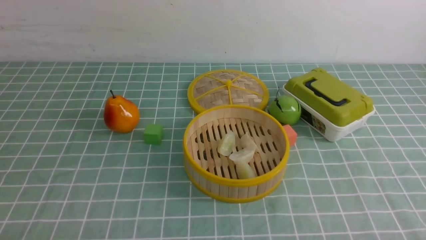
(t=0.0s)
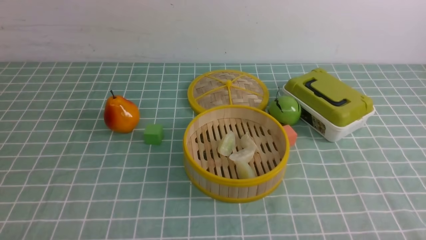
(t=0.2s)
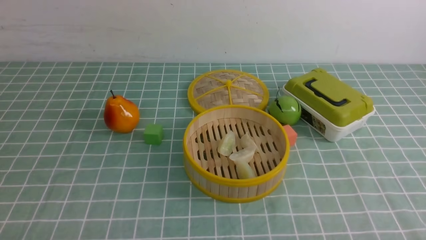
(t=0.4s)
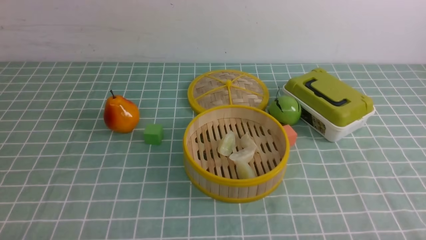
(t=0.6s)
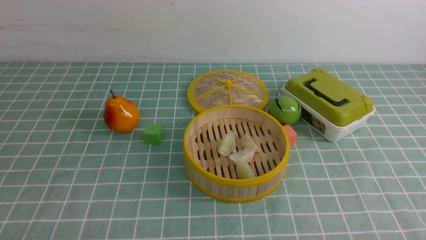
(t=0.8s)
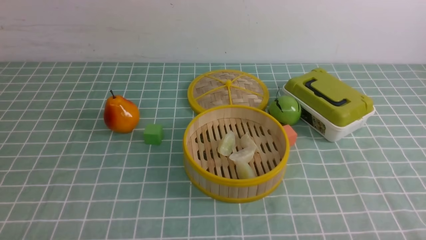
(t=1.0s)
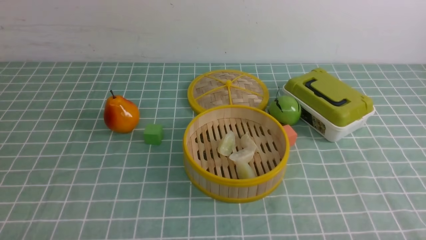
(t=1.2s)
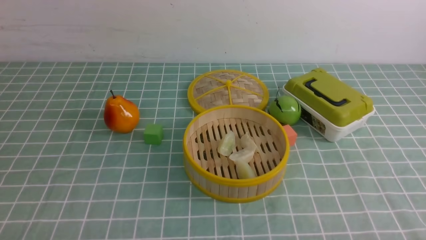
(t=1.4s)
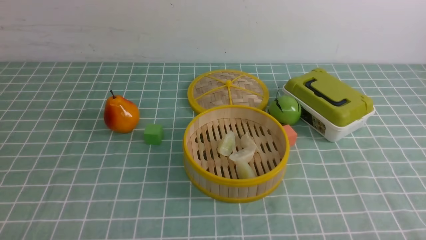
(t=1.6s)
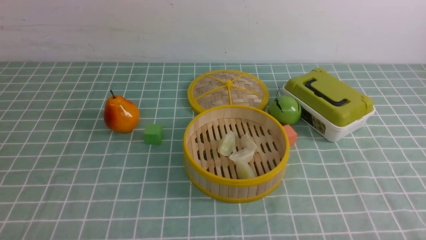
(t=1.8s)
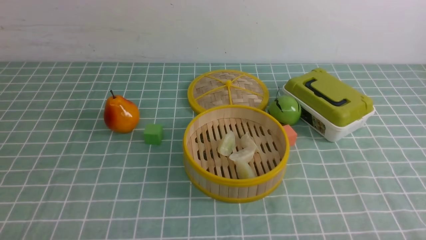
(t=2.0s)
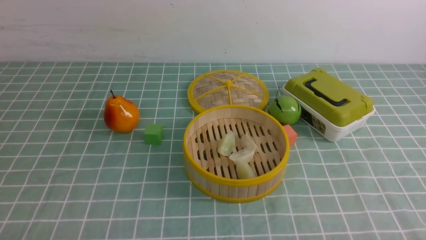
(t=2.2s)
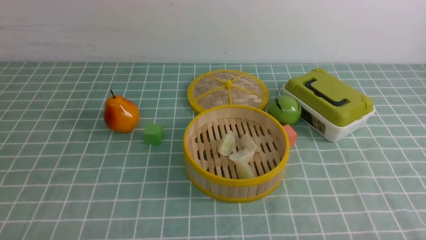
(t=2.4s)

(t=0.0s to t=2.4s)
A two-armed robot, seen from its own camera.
Task of the whole recording: put the dumplings into the steamer on the table with the blue tablecloth.
t=1.2s - t=2.4s: The two grippers keep their place.

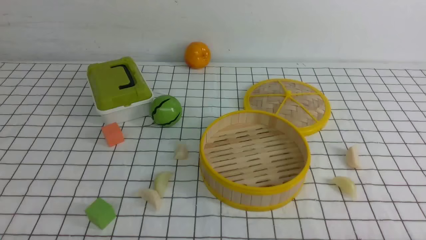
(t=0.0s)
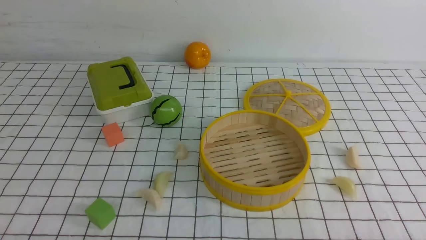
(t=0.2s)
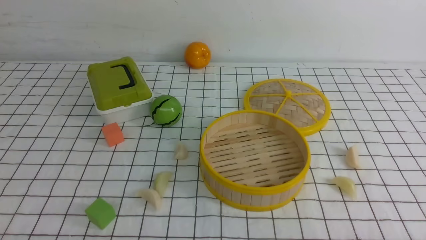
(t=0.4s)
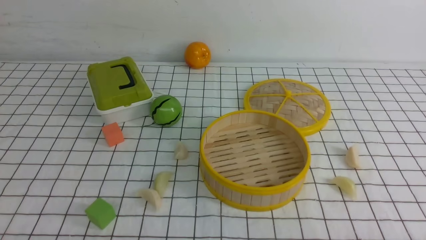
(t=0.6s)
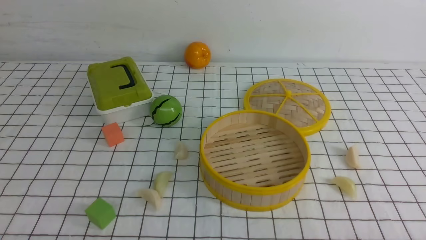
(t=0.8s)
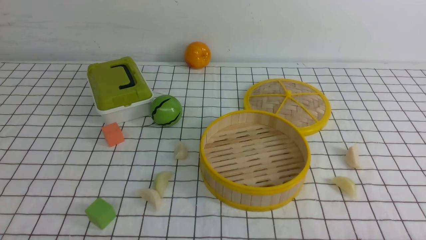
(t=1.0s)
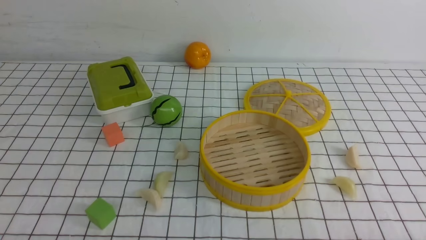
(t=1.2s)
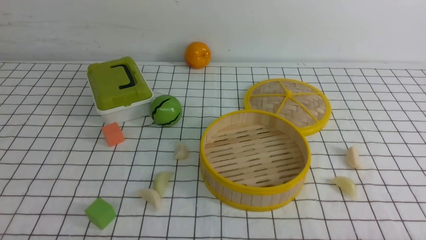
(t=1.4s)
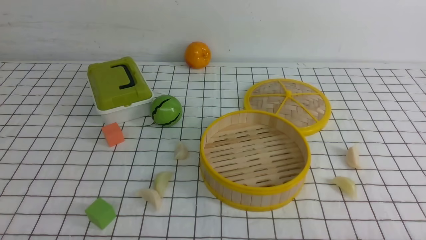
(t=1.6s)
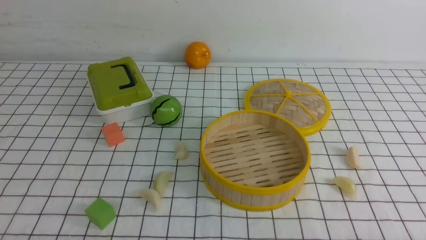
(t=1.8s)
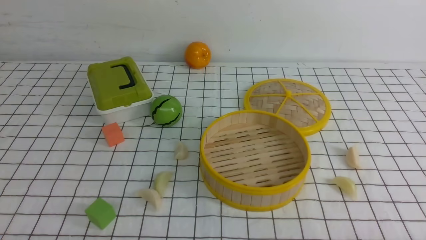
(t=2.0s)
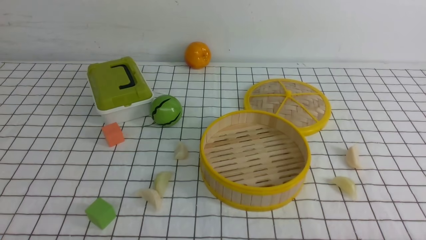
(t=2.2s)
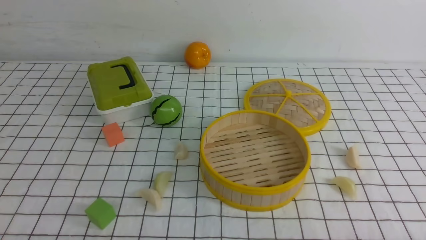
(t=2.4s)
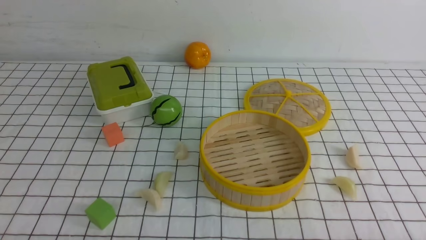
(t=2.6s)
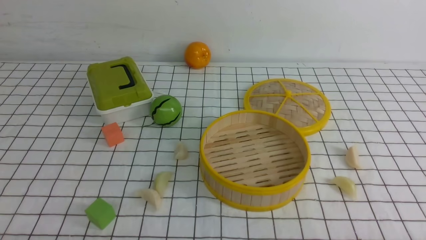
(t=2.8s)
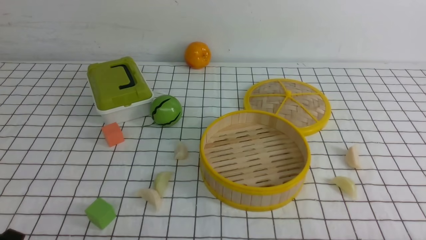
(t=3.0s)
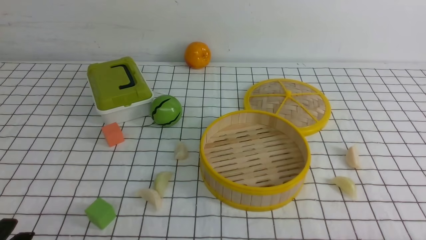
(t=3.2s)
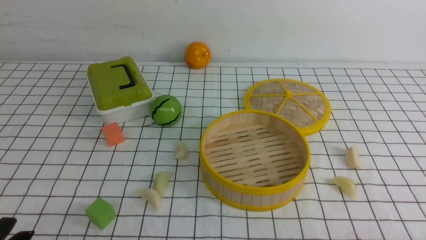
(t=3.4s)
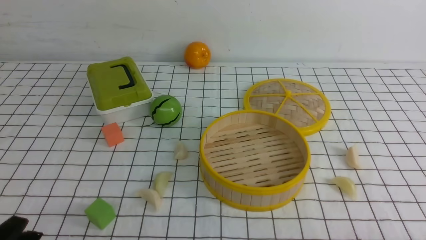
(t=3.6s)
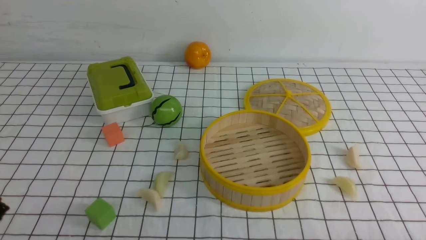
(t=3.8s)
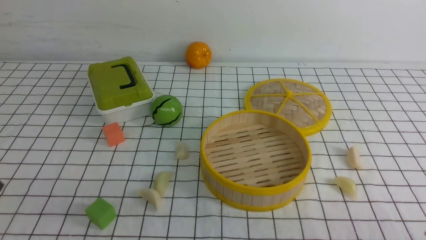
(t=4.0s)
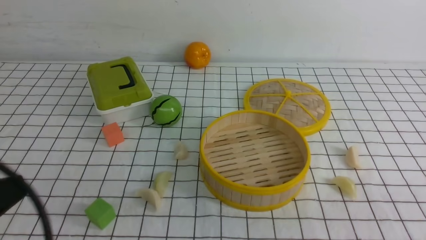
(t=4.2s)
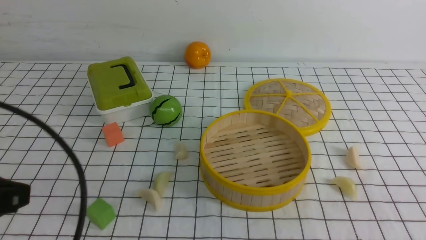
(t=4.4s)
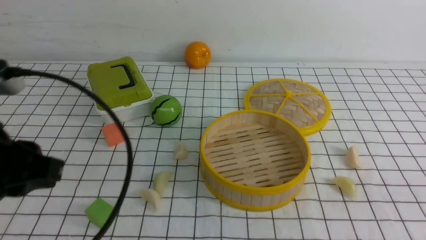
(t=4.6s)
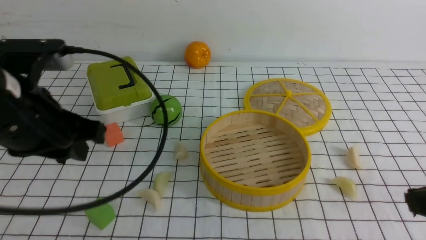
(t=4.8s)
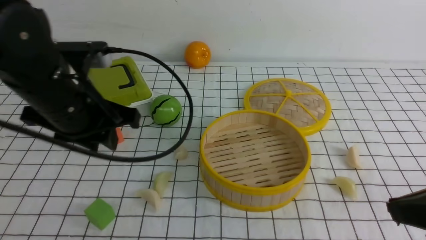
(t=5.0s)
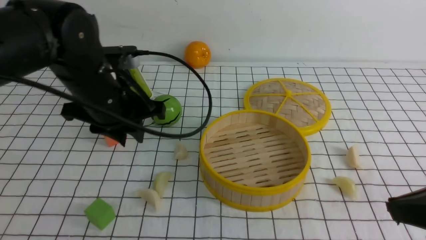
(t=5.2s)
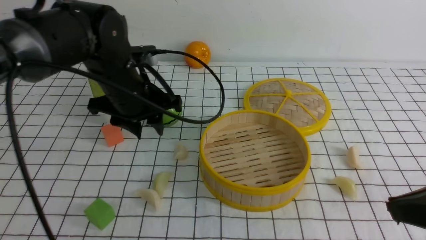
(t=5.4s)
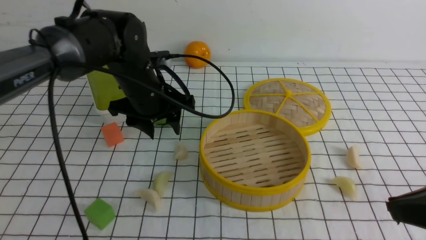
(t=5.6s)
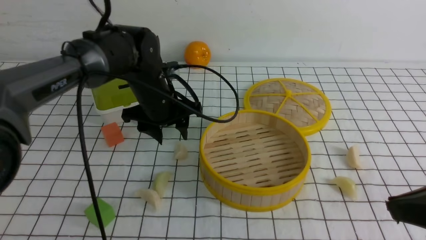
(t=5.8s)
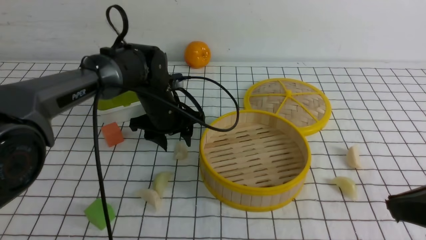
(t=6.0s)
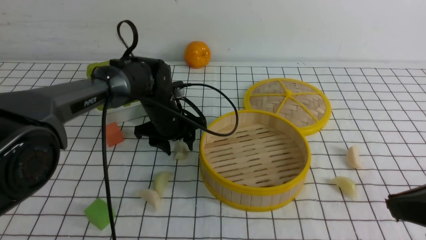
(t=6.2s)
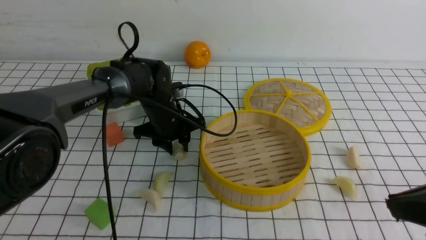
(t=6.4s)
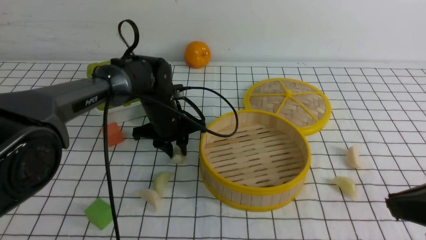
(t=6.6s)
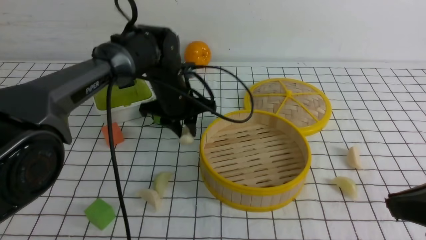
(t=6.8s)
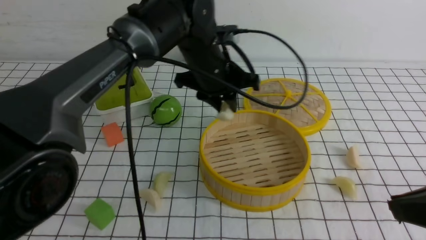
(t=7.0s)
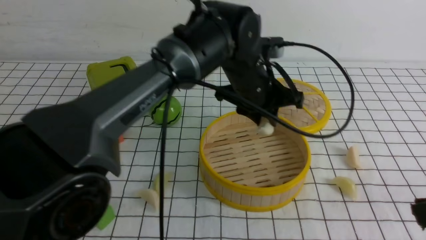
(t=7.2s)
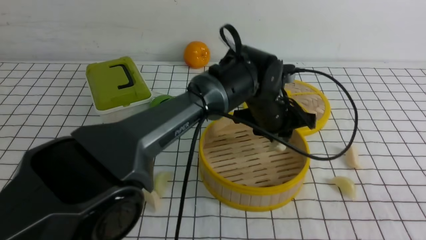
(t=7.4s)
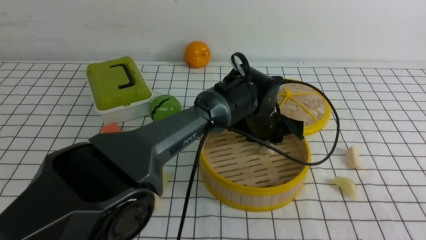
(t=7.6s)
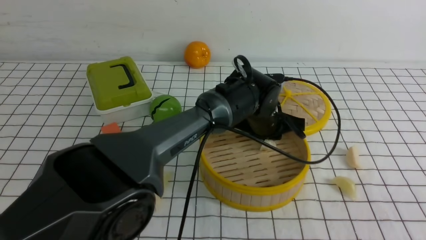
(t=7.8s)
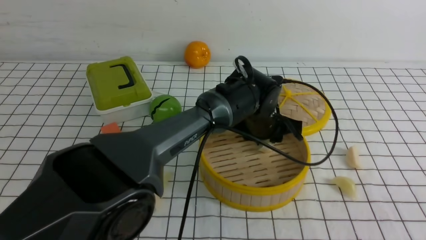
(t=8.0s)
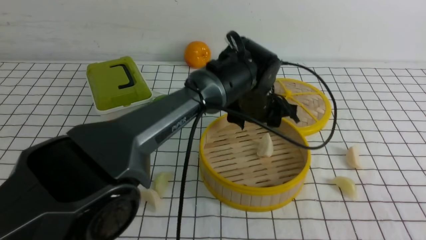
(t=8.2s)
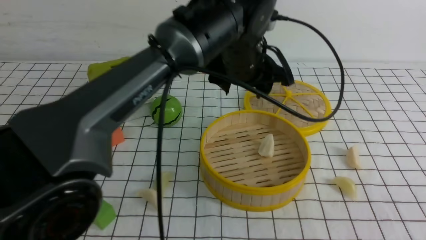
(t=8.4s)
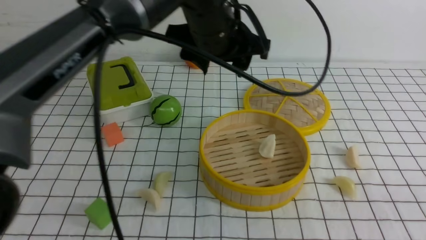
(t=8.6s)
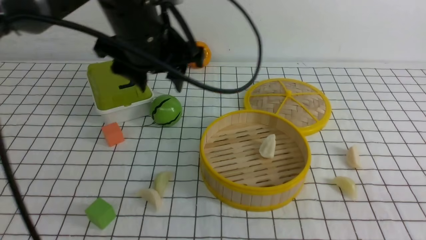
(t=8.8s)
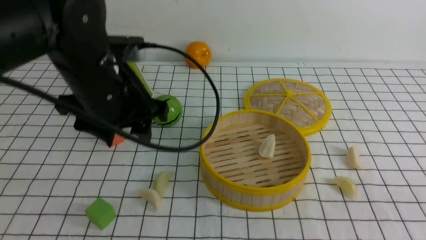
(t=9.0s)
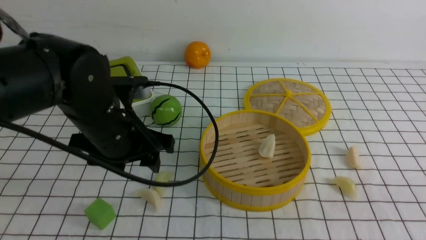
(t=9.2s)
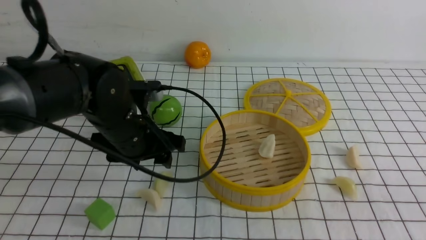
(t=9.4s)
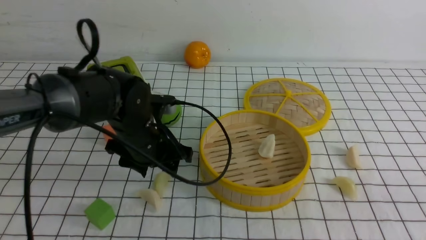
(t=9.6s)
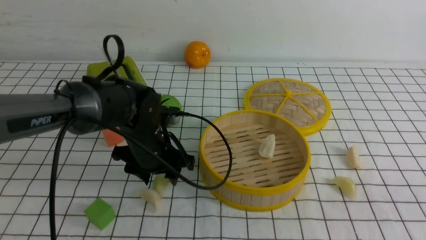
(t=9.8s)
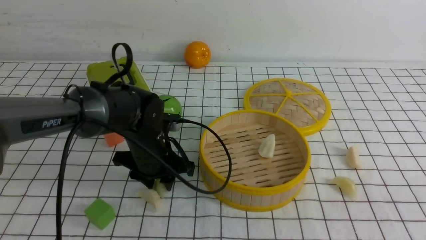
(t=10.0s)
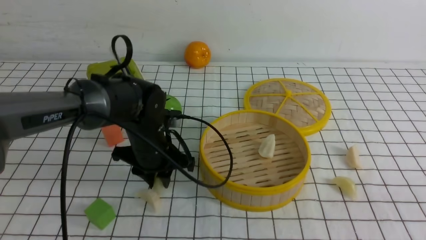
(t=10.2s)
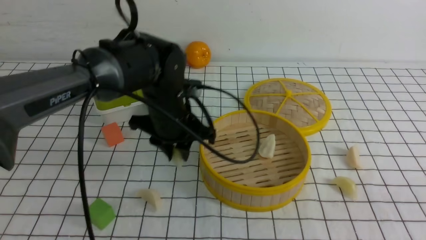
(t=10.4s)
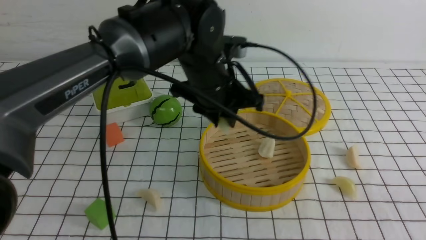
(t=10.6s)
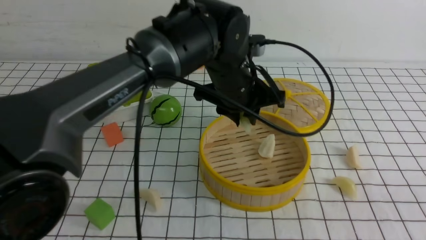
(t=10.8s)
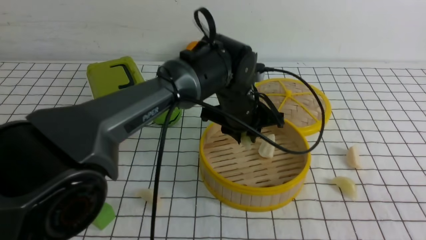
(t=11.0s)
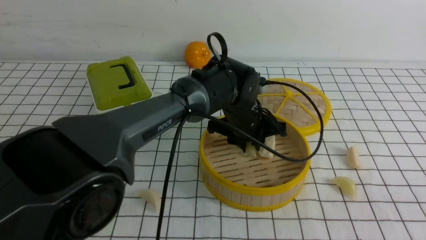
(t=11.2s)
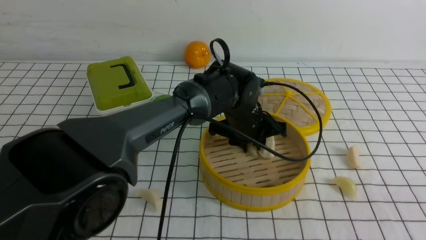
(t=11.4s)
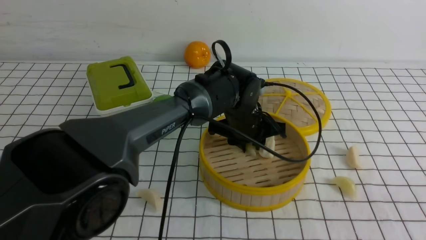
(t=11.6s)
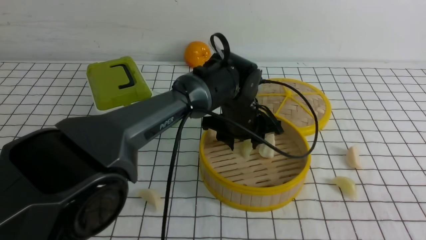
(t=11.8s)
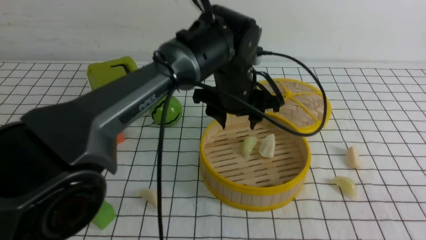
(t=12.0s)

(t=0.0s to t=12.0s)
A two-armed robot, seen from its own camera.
Task of the whole recording: put the dumplings into the steamer on the table with the white tablecloth.
Step, t=0.0s - t=6.6s: use the left arm to grab a dumpling.
Step, t=6.8s - t=8.2s: use the left arm to put the dumpling into the steamer.
Step, t=8.4s - t=10.2s: use the left arm to grab a dumpling.
Step, t=10.6s - t=12.0s: use the left arm to put the dumpling into the steamer.
t=0.0s - t=1.6s: The two grippers keep their place.
t=3.0s - t=4.4s: The left gripper heads upward and forward, covering some 20 cm.
t=4.4s - t=6.0s: The right gripper shifts approximately 5 cm forward. The left gripper is displaced forward, downward and to the right by some 35 cm, and opens.
t=6.0s - t=7.6s: The right gripper is displaced backward by approximately 5 cm, while the left gripper goes about 20 cm to the right, and closes its fingers.
t=7.6s - t=9.0s: The left gripper travels to the left, upward and backward by approximately 25 cm, and opens up.
t=9.0s - t=10.4s: The left gripper heads to the right, downward and forward, covering approximately 10 cm, and closes its fingers.
t=10.4s - t=12.0s: The left gripper moves to the right, about 10 cm, and opens.

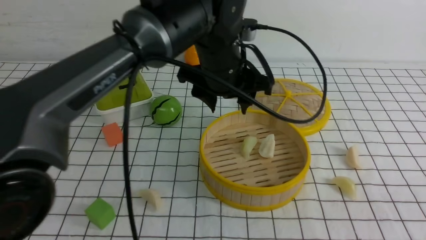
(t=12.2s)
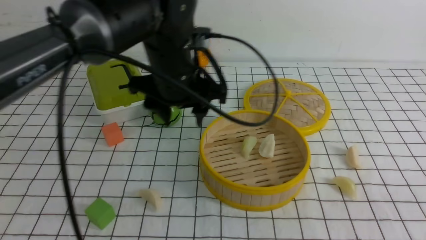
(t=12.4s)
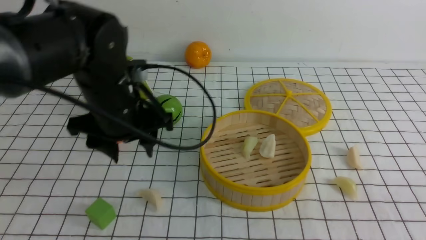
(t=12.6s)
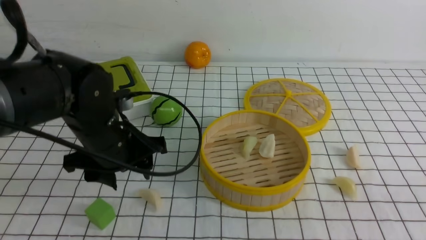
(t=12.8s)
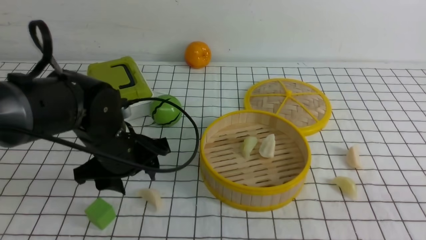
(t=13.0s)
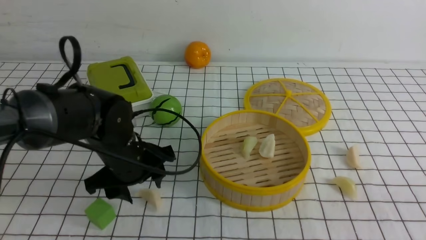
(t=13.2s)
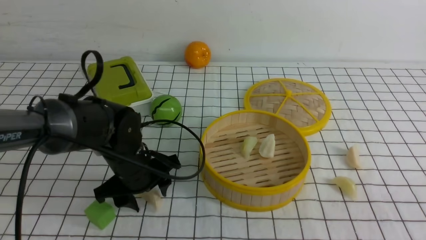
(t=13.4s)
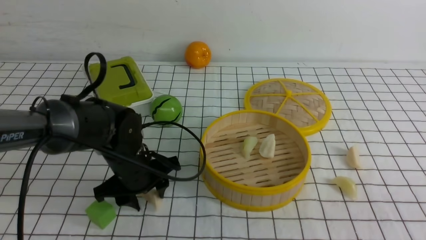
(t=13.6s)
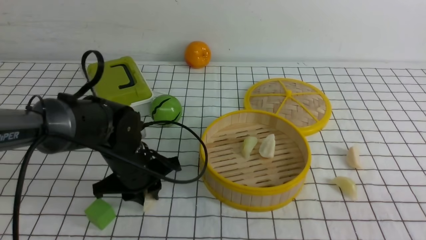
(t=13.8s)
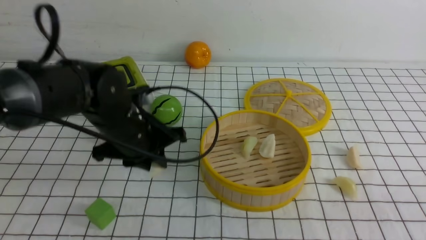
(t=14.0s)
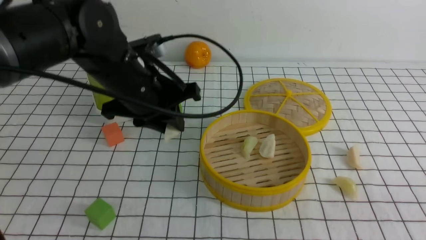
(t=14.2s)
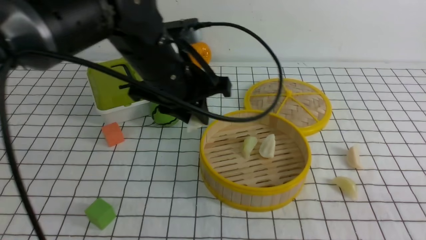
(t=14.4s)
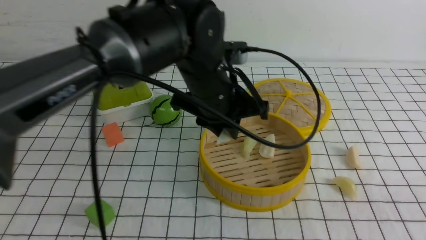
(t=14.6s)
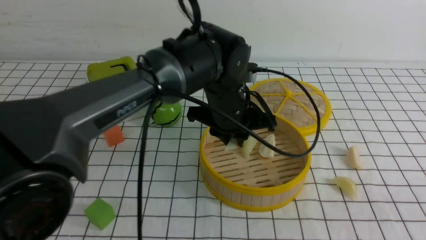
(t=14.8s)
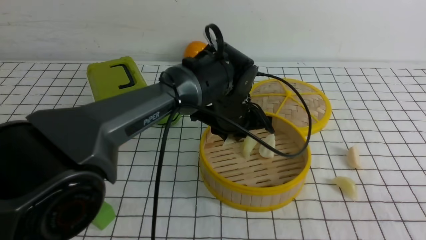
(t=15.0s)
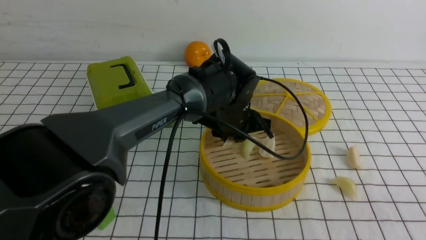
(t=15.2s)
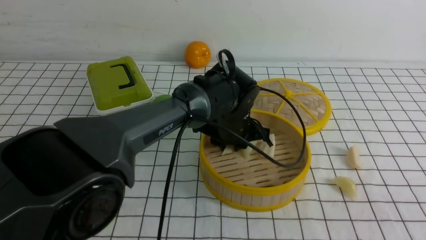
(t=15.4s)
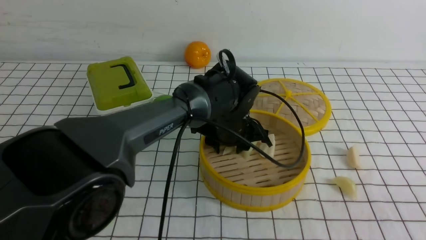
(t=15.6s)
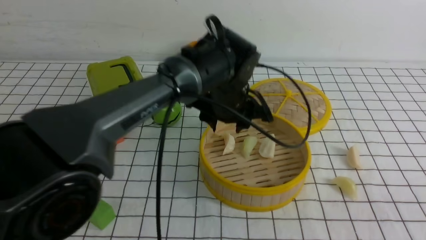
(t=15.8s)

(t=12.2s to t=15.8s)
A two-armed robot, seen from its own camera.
Task of the whole recording: put the dumplings into the steamer on the table with the white tablecloth.
Step, t=12.2s - t=14.0s: use the left arm to grab a dumpling.
Step, t=14.2s - t=15.8s: use the left arm to put the dumpling into the steamer.
t=12.2s - t=14.0s: The left gripper moves to the left and downward, roughly 10 cm, and closes.
t=14.0s - t=15.8s: The left gripper is displaced to the right and forward by about 15 cm, and opens its fingers.
